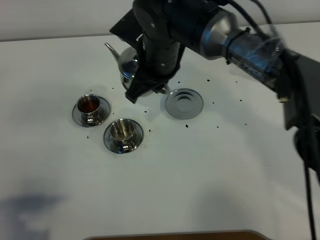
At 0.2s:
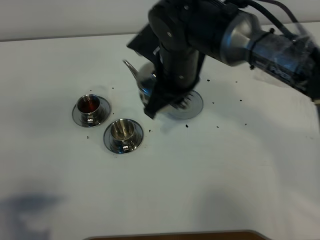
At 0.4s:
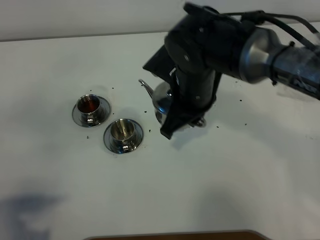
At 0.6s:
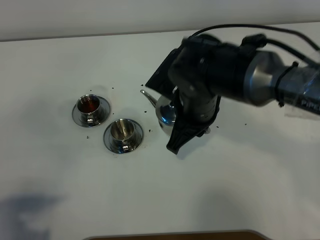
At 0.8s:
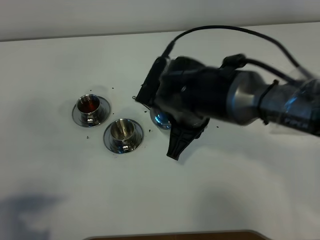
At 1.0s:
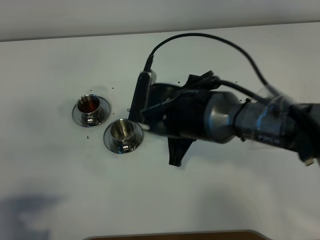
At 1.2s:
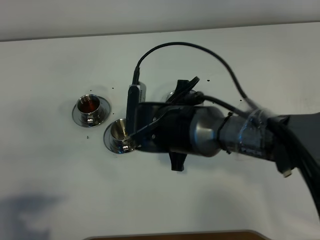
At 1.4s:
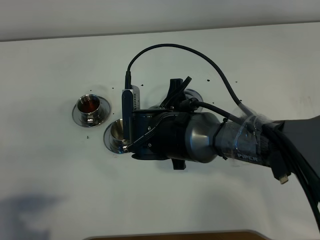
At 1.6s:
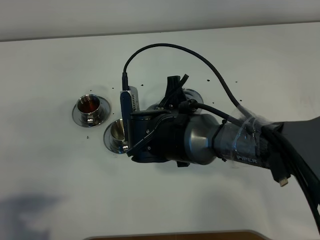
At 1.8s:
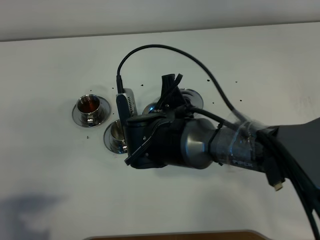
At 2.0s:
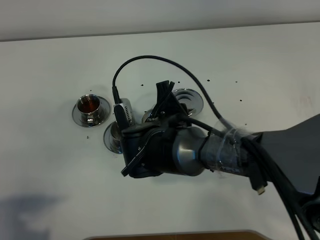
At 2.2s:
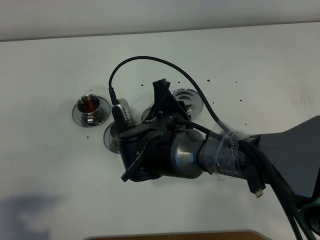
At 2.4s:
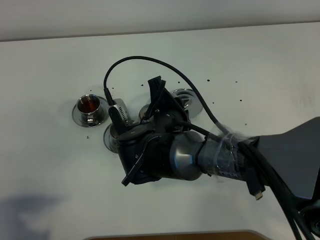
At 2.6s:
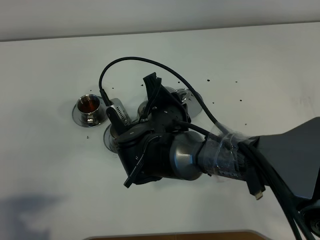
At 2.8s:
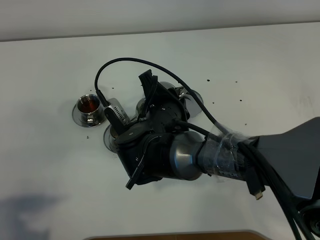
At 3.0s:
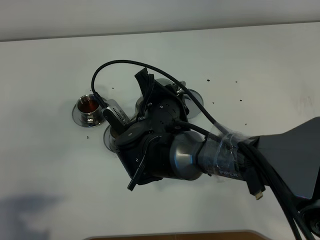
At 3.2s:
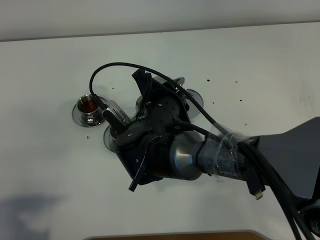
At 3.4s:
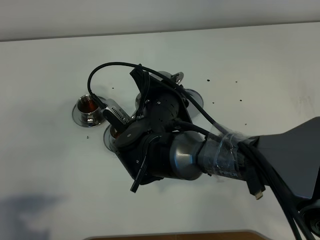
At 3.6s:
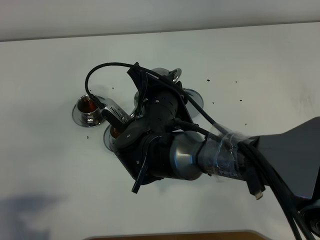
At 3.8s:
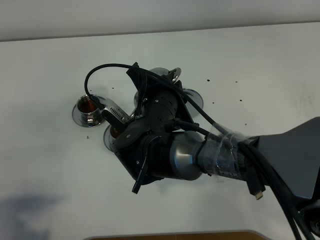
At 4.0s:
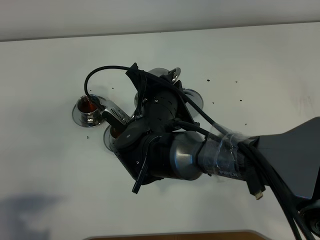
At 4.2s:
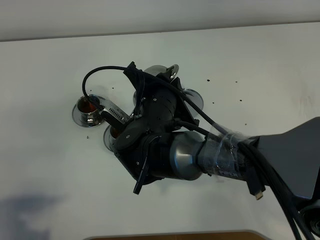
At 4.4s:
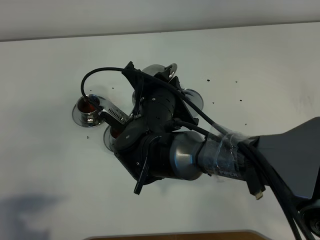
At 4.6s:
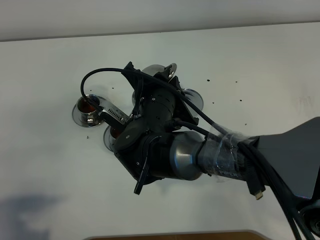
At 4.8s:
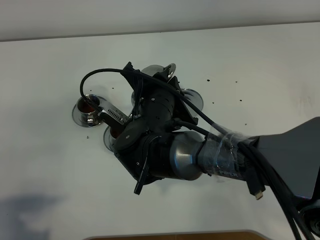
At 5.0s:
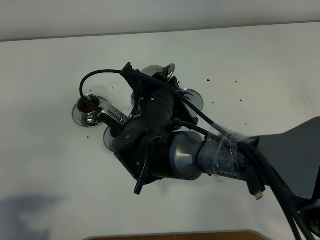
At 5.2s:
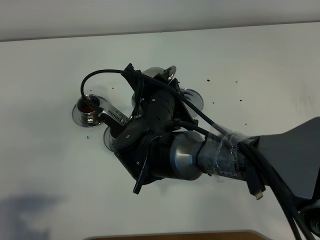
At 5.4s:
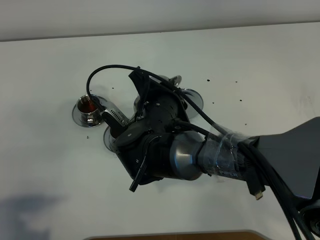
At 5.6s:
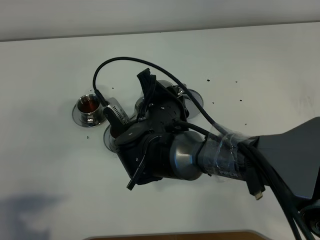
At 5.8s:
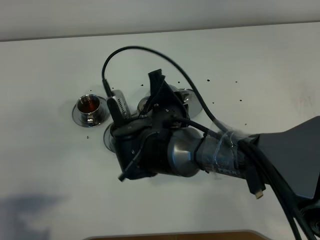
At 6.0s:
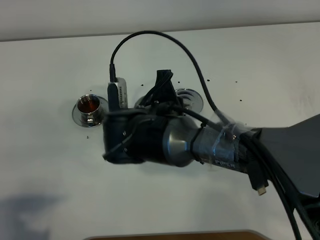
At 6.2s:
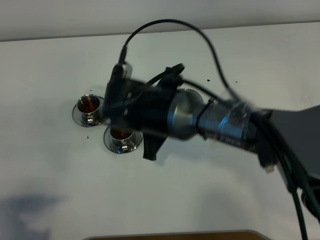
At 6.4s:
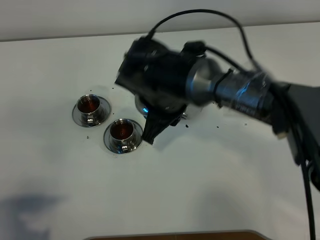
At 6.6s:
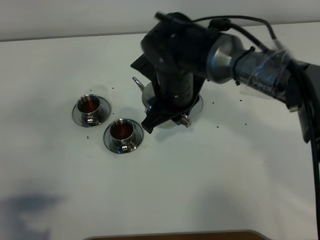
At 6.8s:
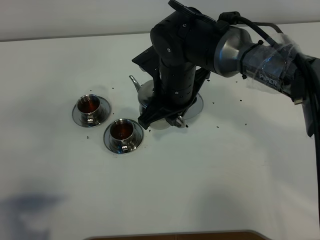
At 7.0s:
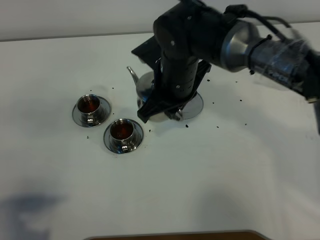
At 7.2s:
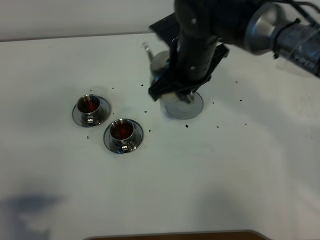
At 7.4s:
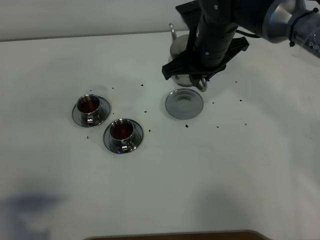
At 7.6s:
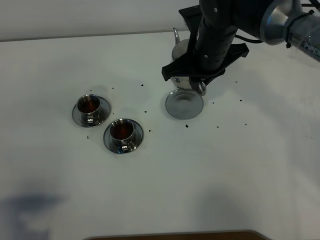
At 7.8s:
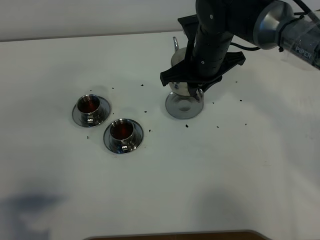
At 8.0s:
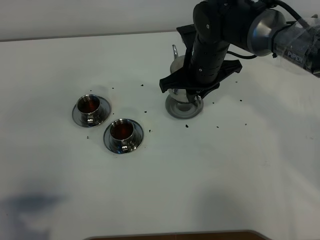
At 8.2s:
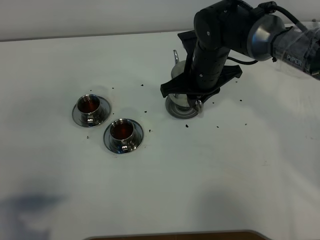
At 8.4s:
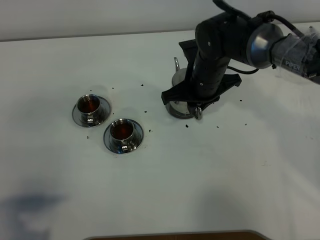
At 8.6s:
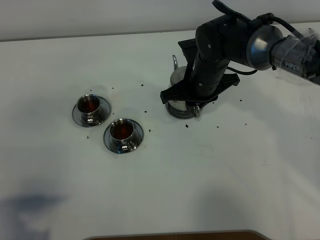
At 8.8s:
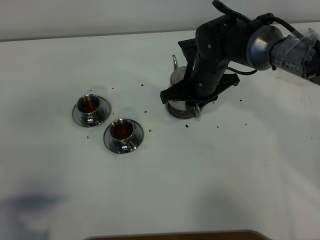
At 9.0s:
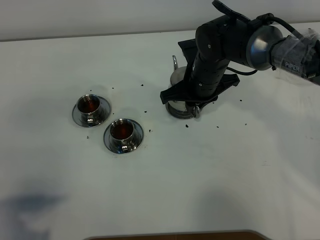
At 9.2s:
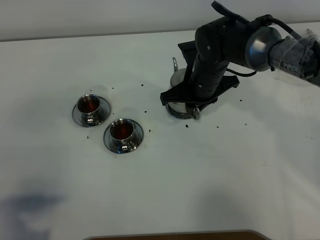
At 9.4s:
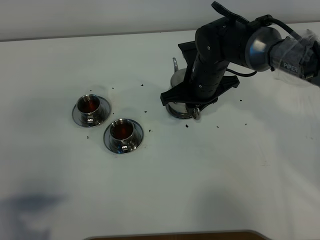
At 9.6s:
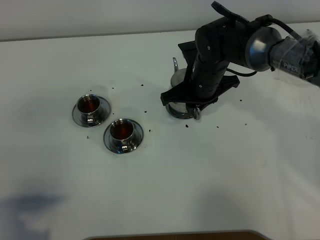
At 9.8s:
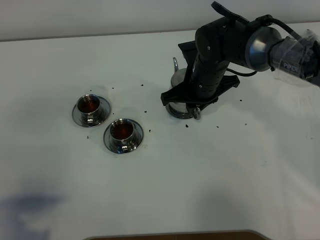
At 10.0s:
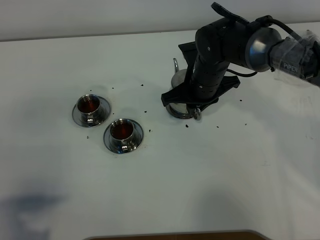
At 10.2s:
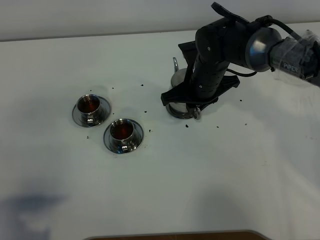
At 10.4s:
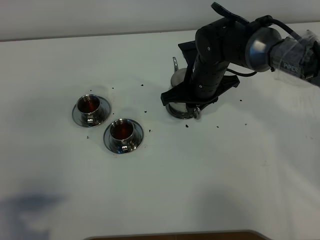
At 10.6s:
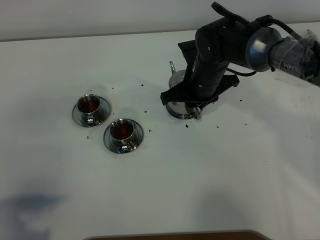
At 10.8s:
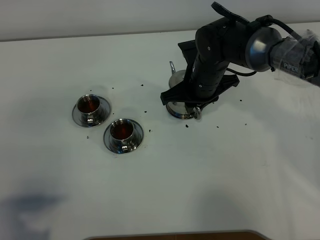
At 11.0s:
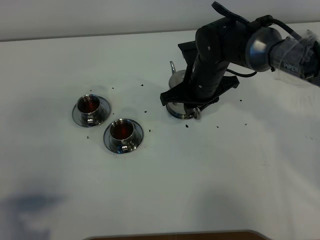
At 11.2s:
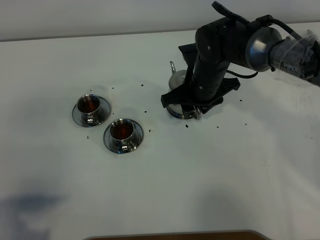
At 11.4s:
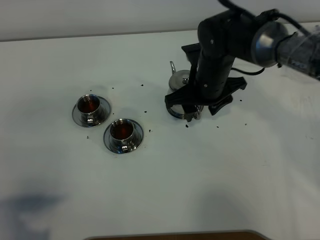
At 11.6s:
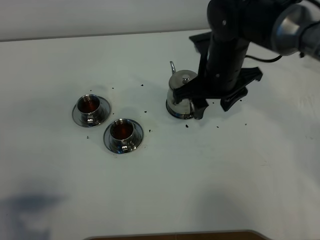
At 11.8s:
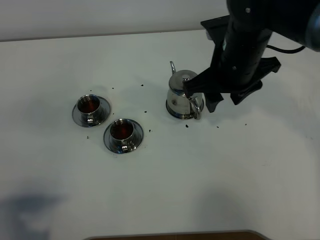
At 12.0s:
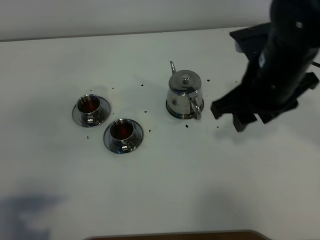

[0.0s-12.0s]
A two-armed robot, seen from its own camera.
Task of the whole recording: grasp the stainless steel teapot and pour the tea into the two stainless steel teacups one by one, put the stainless steel teapot back in its original place.
Step, 0.0s to 6.0s: Pour tea into the teacup with the right gripper.
0.0s to 1.6s: The right gripper is displaced backward and downward by approximately 10 cm.
3.0s to 4.4s: There are only small adjustments of the grippers.
6.0s to 7.6s: The right gripper moves forward and to the right, roughly 15 cm.
7.6s to 9.0s: The right gripper goes roughly 5 cm downward.
9.0s to 10.4s: Both grippers stay put.
10.4s to 12.0s: The right gripper travels upward, backward and to the right by roughly 20 cm, and opens.

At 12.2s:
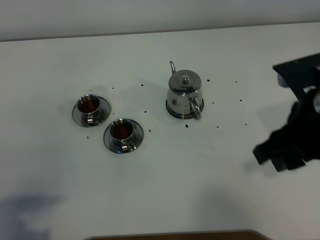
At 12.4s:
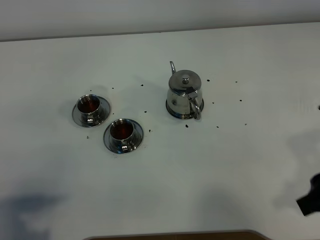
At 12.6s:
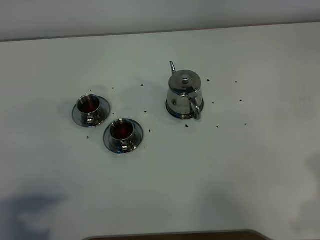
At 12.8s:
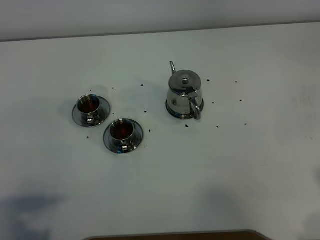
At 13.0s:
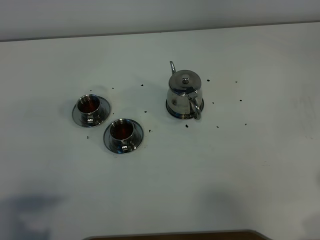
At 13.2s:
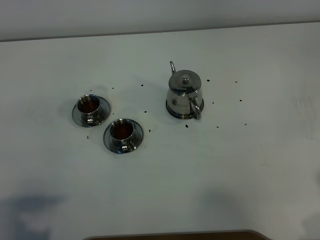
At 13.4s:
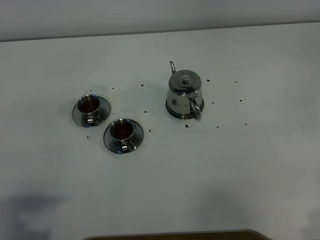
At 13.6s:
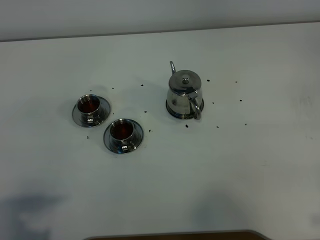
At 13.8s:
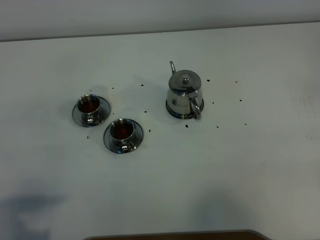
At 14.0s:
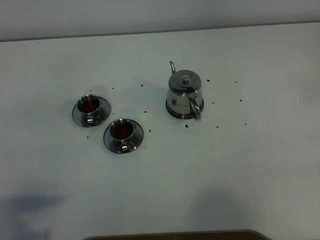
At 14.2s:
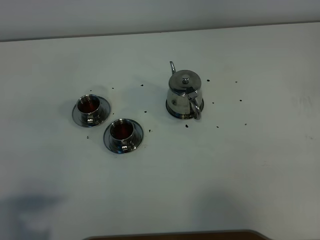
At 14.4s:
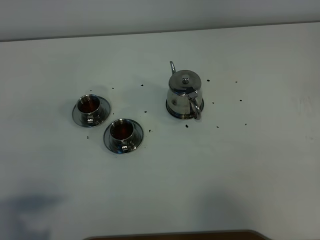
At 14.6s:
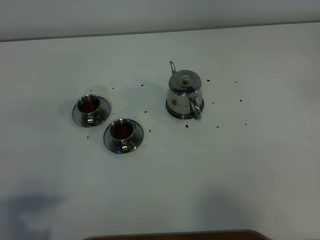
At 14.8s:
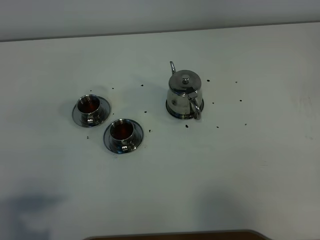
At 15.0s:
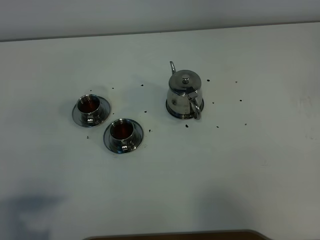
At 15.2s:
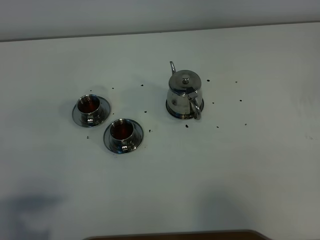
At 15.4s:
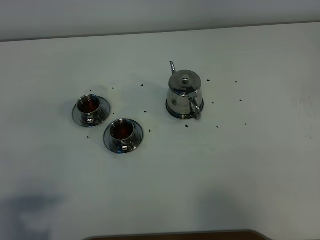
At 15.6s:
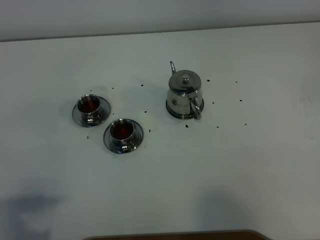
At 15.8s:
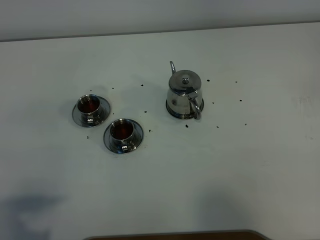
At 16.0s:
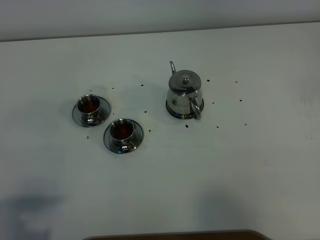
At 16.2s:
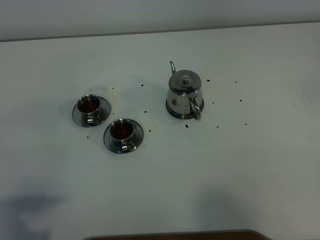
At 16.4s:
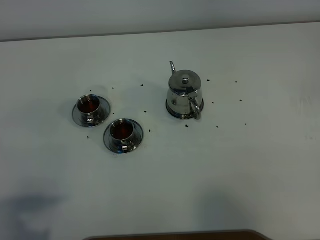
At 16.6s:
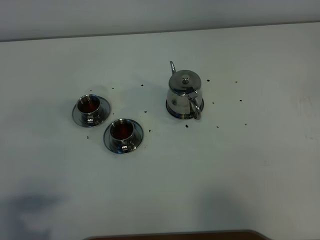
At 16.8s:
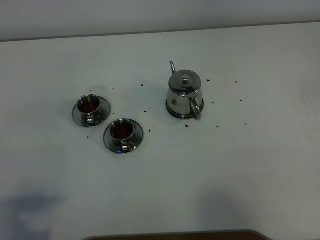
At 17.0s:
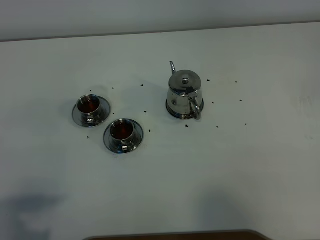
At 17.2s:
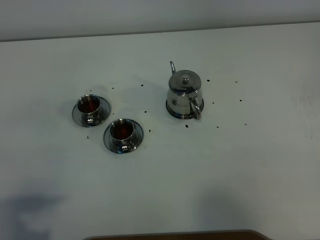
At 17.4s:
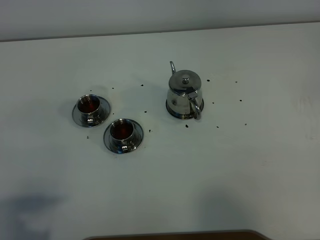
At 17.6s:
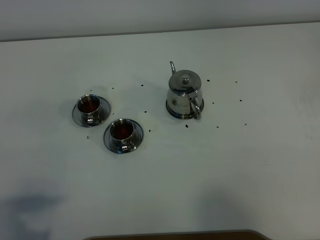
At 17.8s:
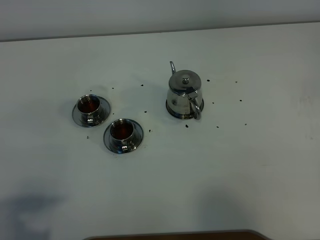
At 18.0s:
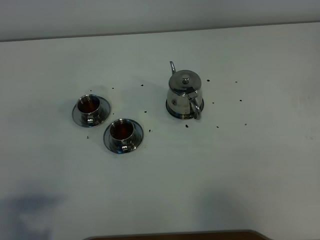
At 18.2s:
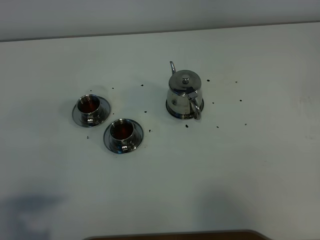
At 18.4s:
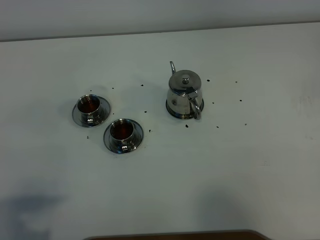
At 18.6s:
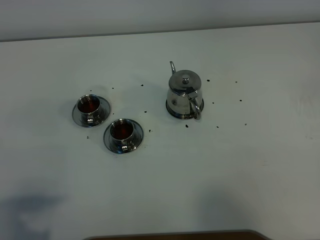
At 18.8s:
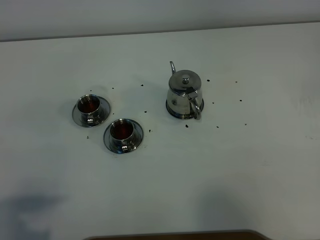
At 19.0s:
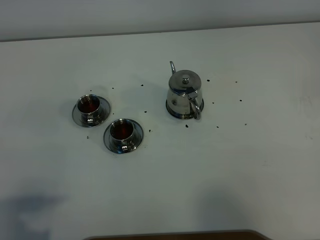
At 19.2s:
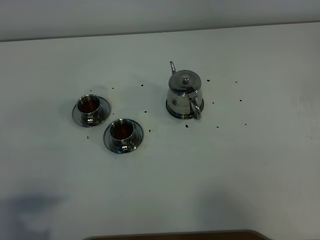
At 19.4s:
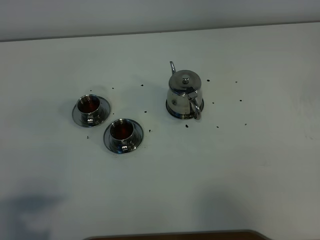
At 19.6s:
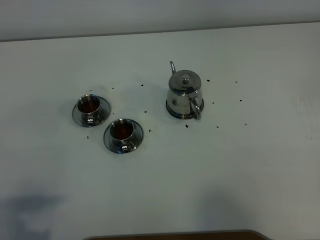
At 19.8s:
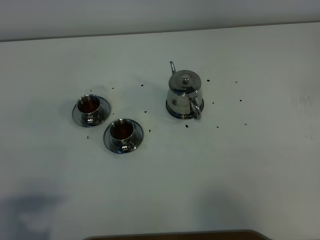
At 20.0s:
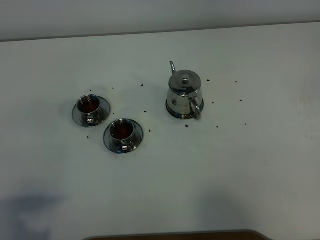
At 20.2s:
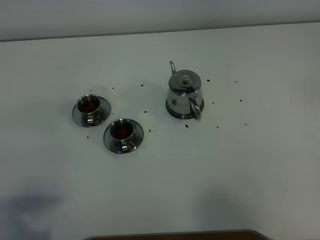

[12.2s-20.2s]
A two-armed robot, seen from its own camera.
Task of the whole recording: grasp the stainless steel teapot and pour the tea into the two stainless steel teacups one by one, put the stainless steel teapot back in its original place.
12.2s to 13.8s: The right gripper shifts roughly 20 cm backward and to the right.
15.4s to 20.2s: Neither gripper changes place.

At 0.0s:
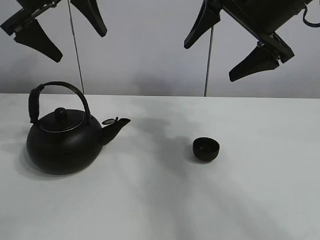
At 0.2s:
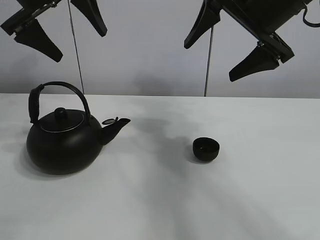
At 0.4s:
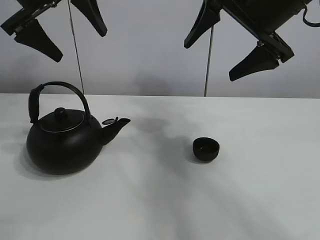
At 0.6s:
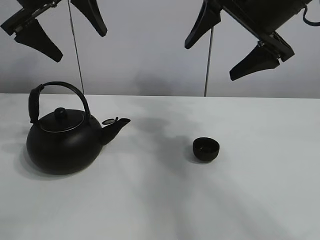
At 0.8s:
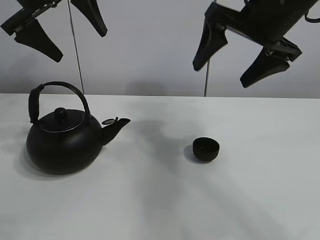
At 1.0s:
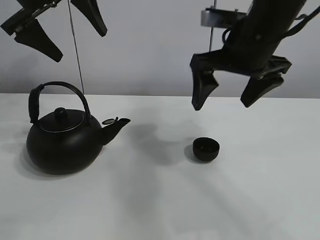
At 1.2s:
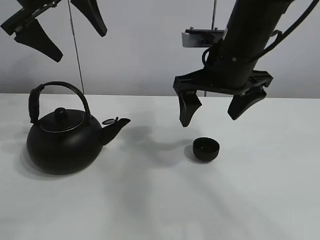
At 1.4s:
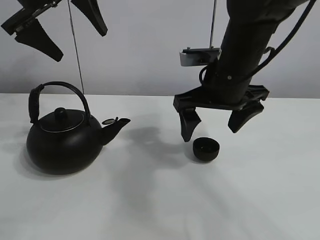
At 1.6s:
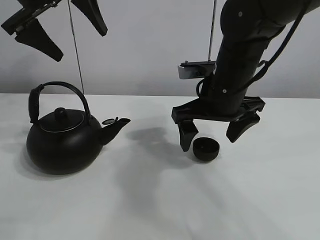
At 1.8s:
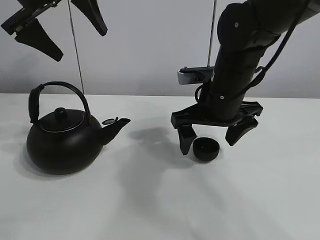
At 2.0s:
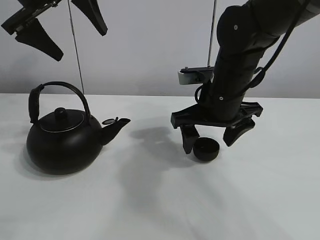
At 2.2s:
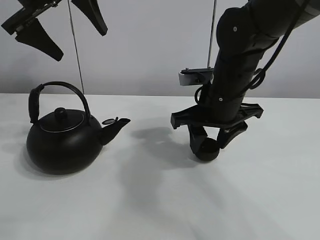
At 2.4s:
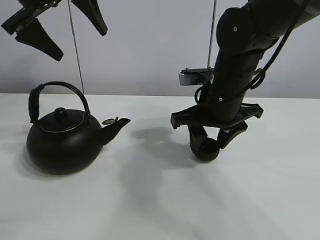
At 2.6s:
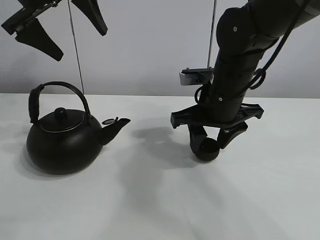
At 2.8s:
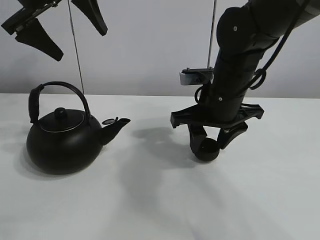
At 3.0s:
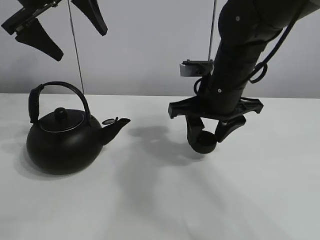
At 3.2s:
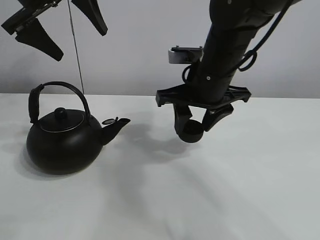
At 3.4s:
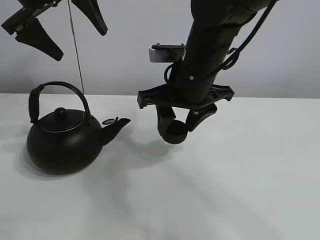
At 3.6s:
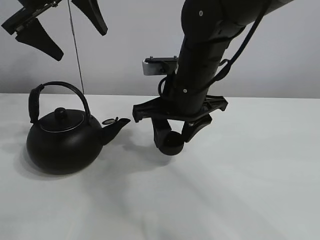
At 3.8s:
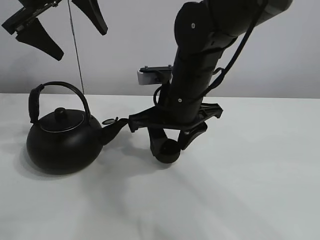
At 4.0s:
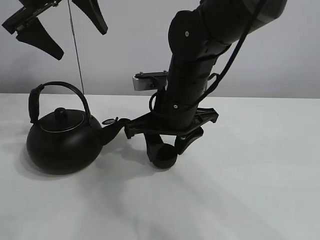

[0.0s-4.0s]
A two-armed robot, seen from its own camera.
Task of the whole recording: pour tea into the teacup.
Step, 0.0s to 2.8s: Pick up the teacup with the right gripper.
1.4s to 2.6s: The right gripper closes its fingers.
2.6s to 4.0s: The right gripper is displaced to the left by some 5 cm.
